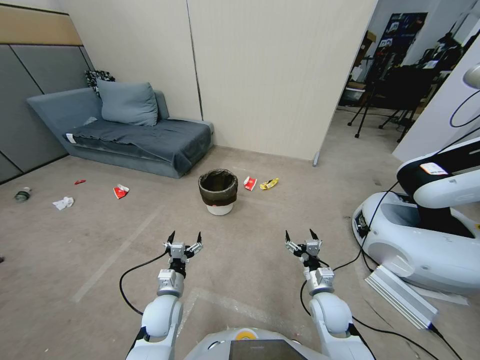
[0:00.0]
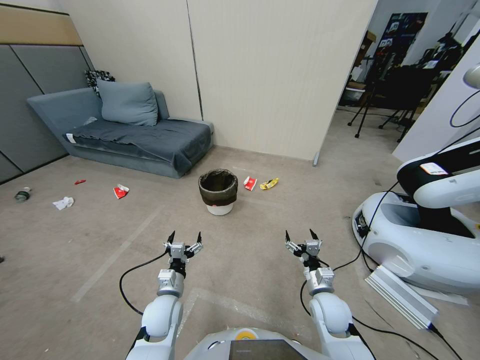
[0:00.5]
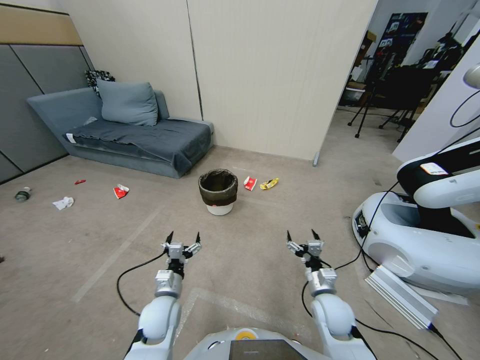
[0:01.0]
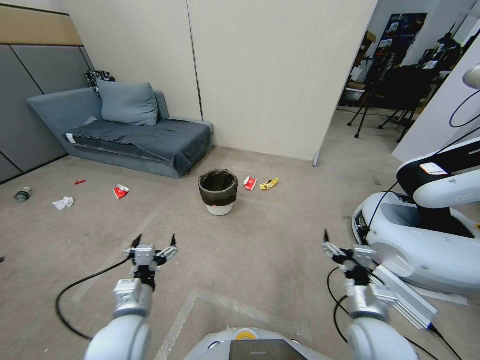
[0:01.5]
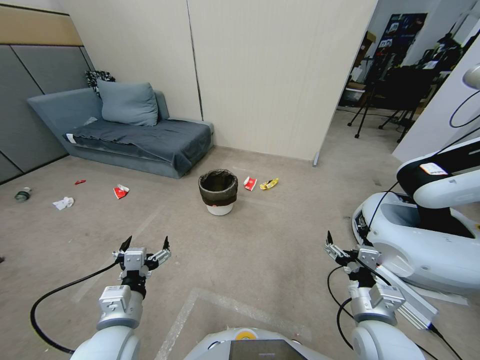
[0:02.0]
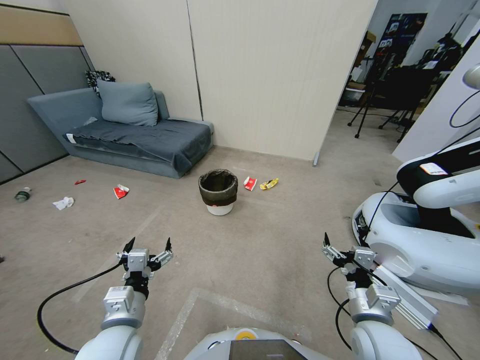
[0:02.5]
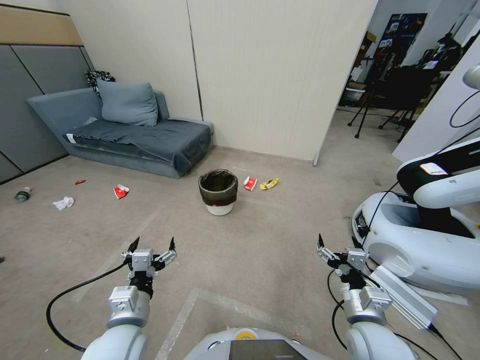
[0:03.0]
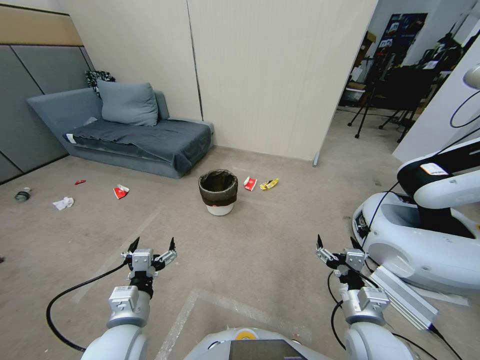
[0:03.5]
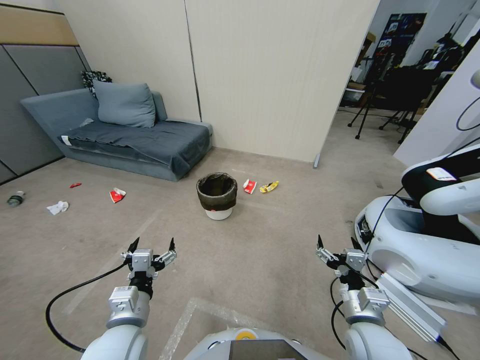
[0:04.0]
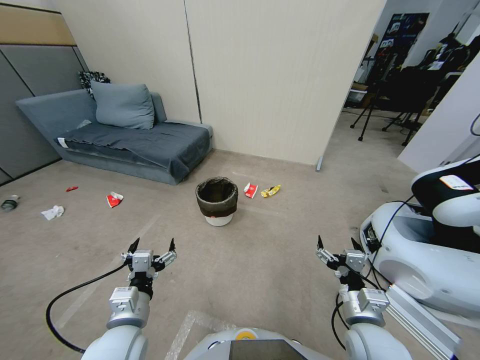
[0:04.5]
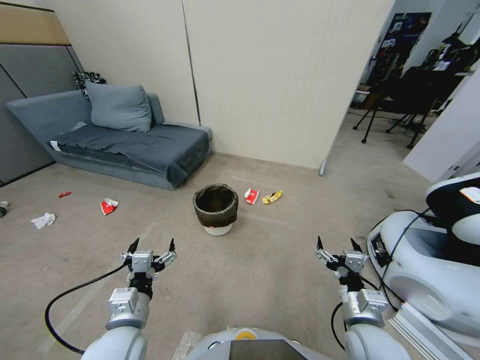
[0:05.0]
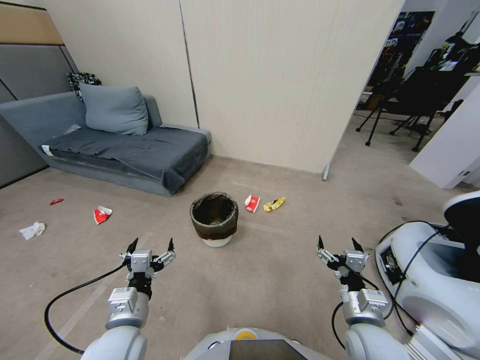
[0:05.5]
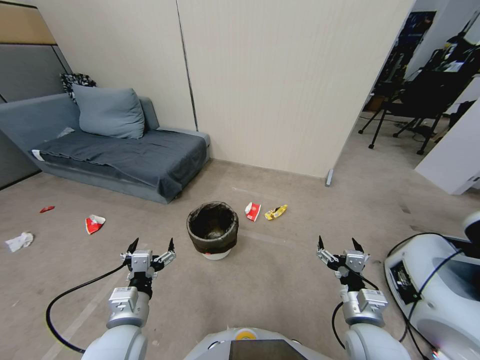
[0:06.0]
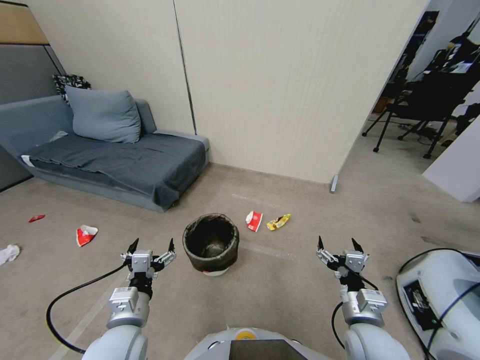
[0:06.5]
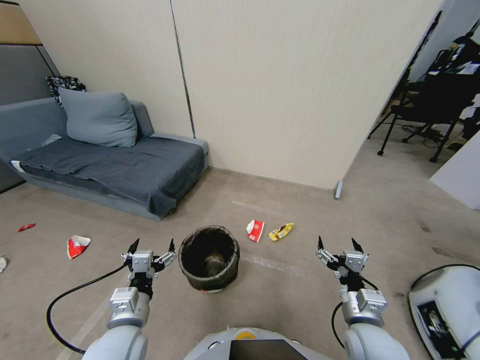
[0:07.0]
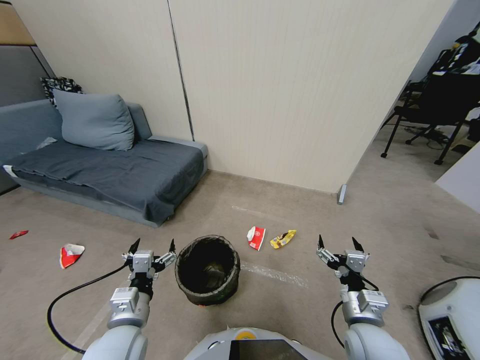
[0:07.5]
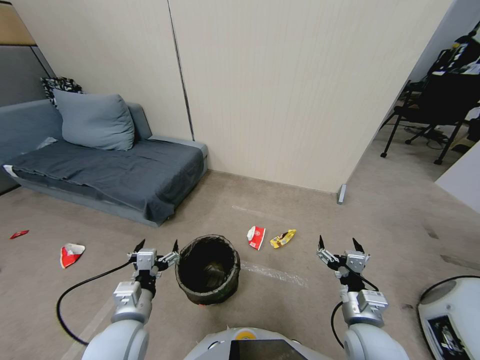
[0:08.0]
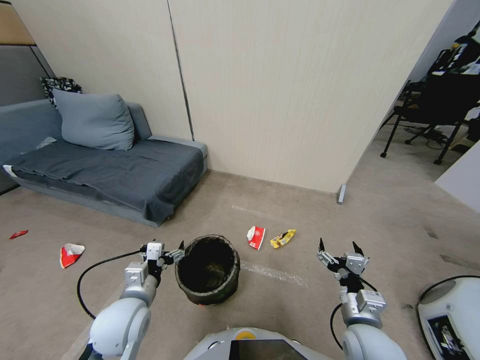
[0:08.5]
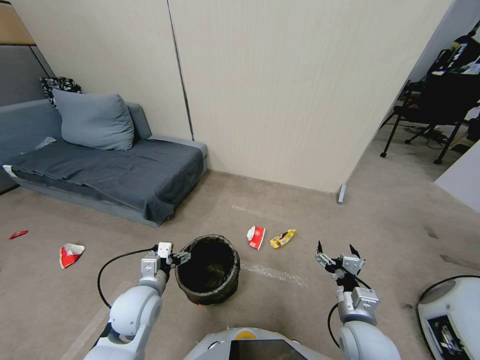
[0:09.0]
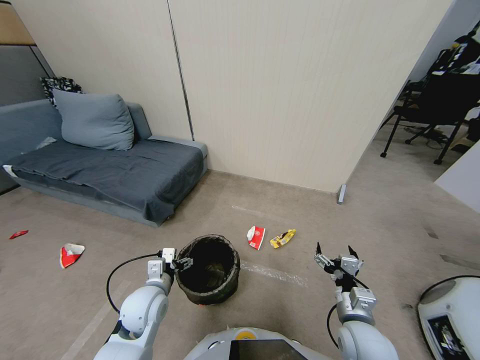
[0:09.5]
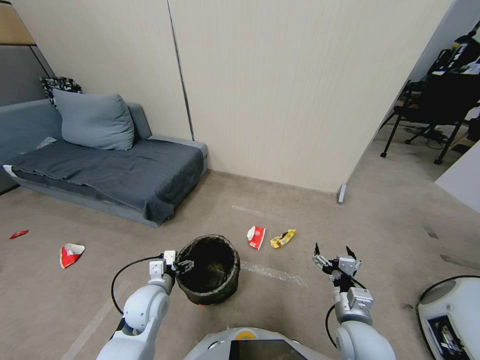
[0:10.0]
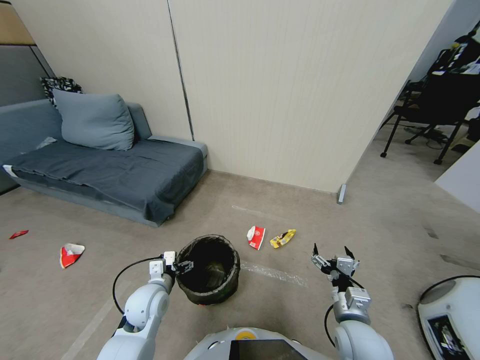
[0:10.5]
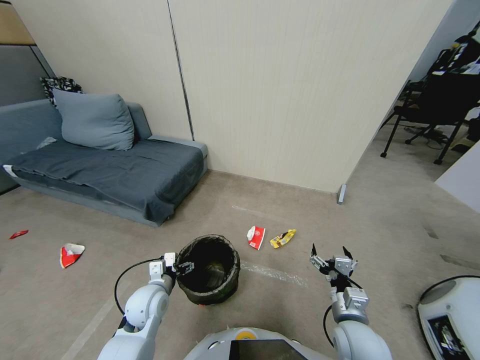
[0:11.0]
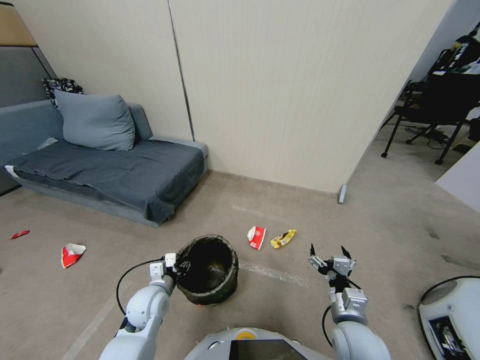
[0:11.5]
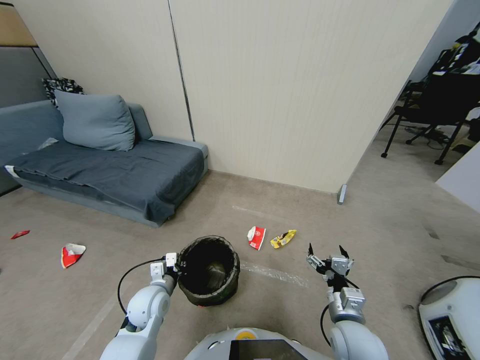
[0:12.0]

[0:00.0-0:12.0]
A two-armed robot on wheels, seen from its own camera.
Task of the whole recording: Pick up the trash bin, then pick up the garbage from the floor and place it into the trash bin.
0:02.0 to 0:04.0: The grippers stay close to where they were, moving slightly.
0:08.0 to 0:10.0: The left gripper travels forward and downward by some 10 cm.
0:10.0 to 0:12.0: The left gripper closes up.

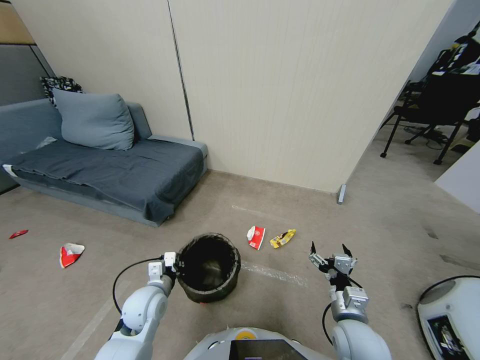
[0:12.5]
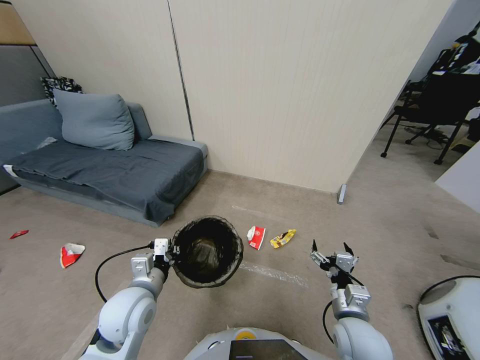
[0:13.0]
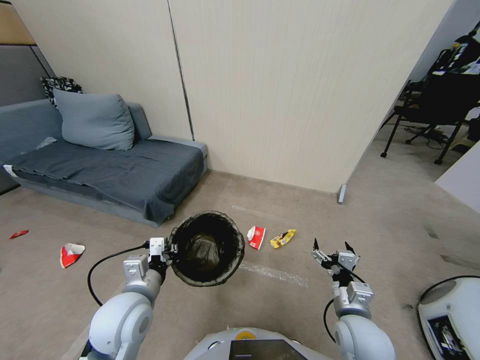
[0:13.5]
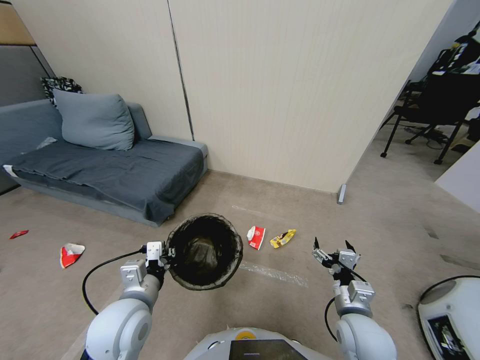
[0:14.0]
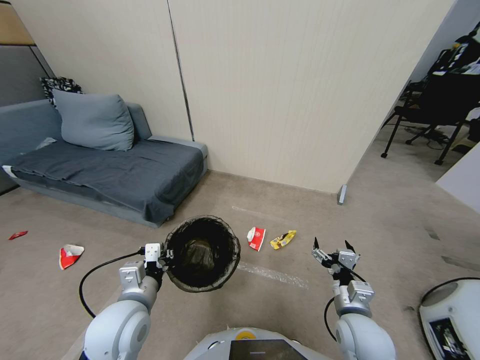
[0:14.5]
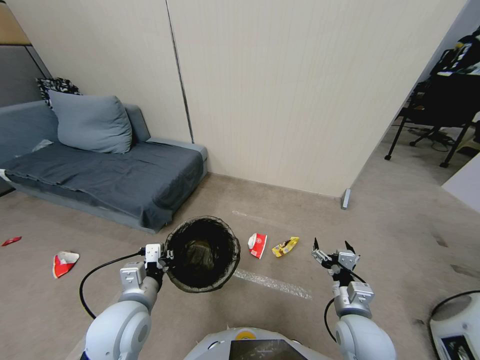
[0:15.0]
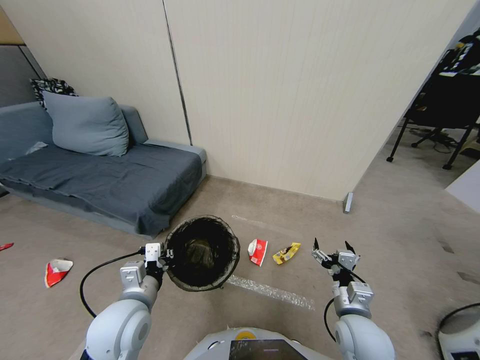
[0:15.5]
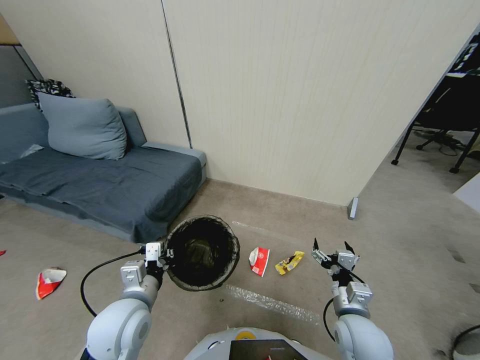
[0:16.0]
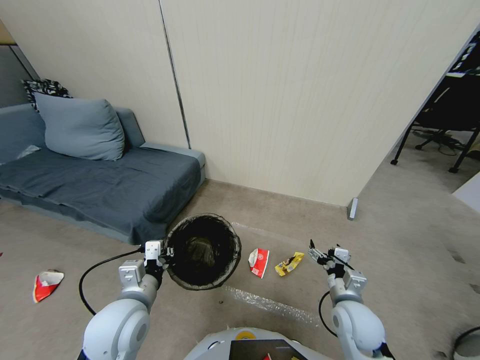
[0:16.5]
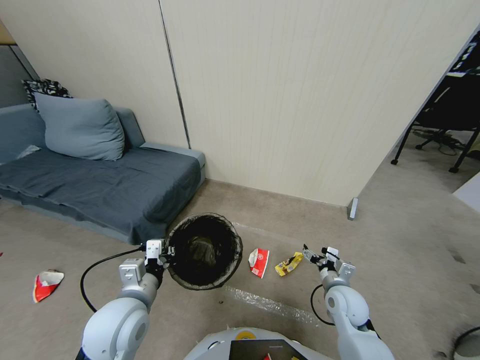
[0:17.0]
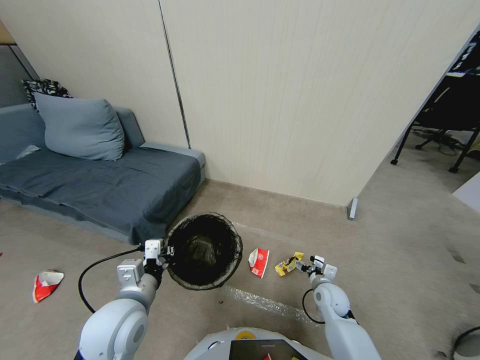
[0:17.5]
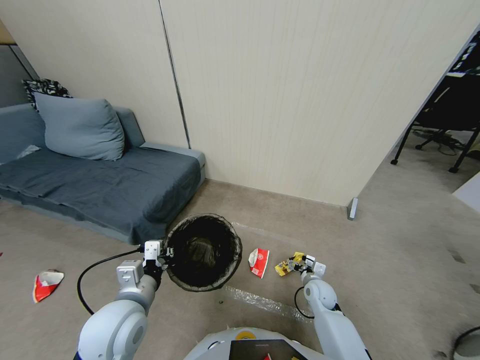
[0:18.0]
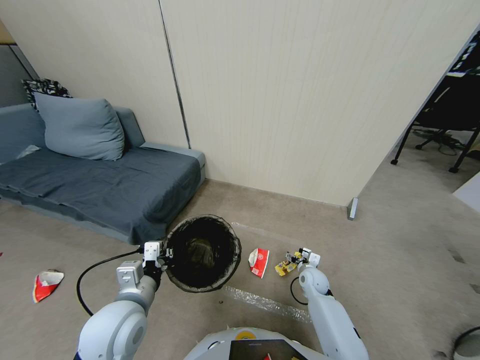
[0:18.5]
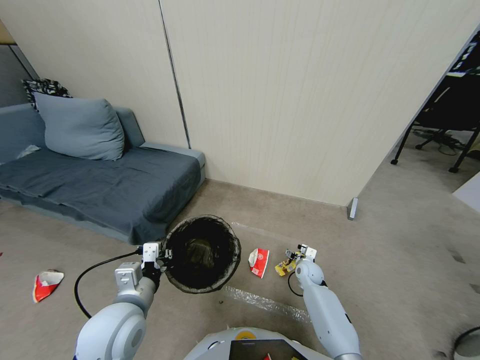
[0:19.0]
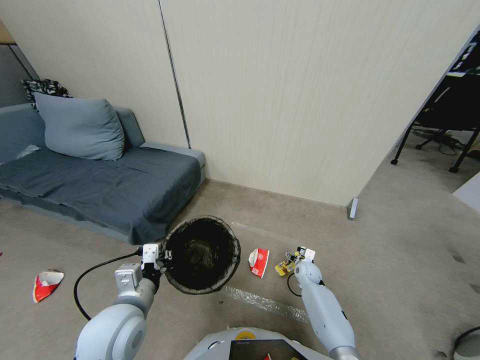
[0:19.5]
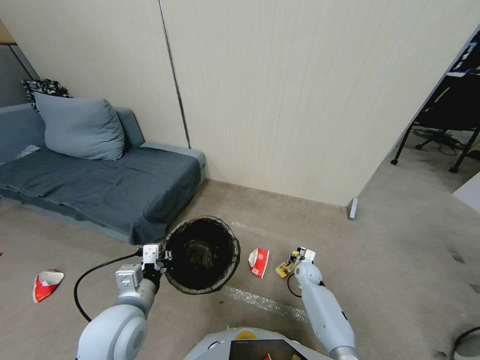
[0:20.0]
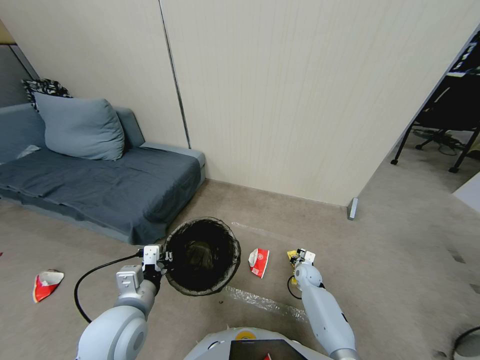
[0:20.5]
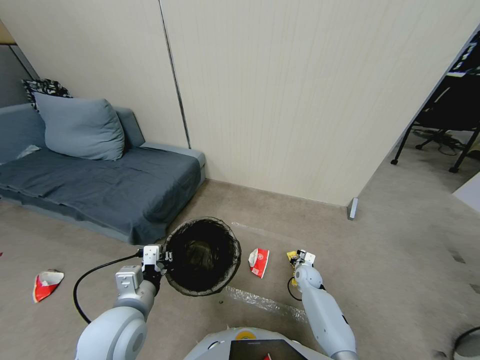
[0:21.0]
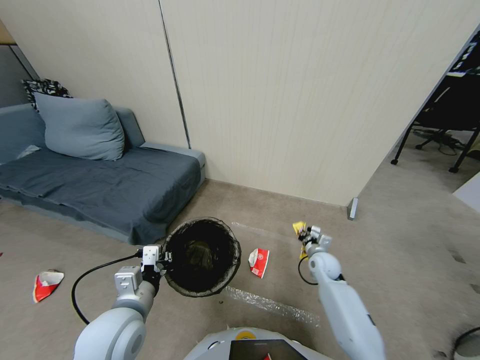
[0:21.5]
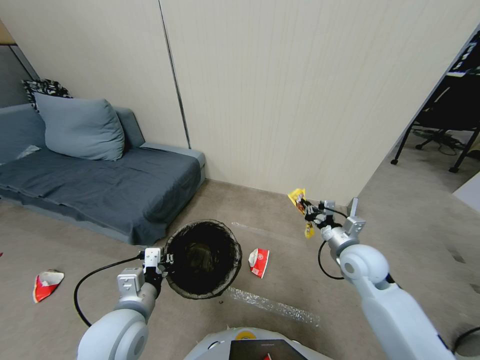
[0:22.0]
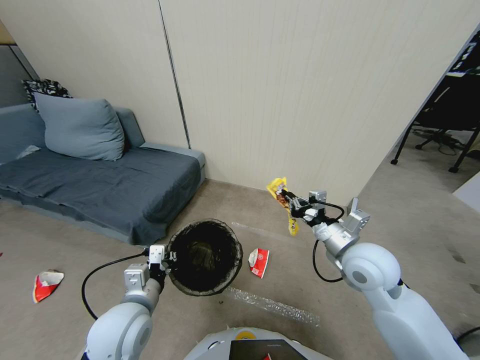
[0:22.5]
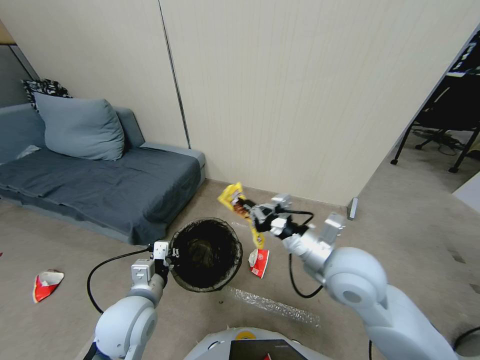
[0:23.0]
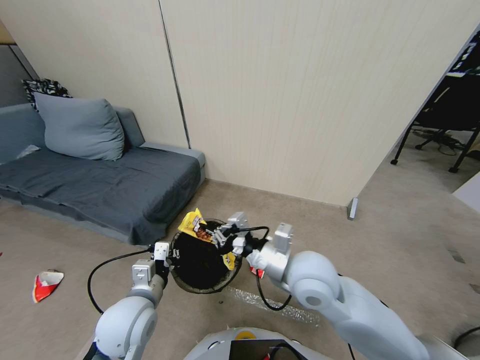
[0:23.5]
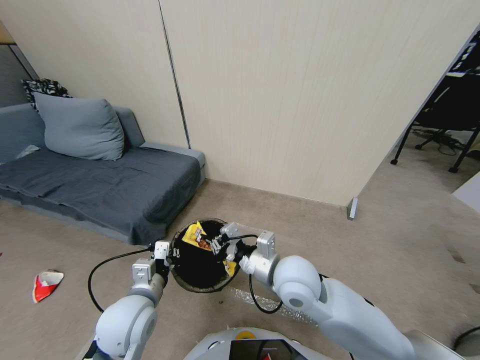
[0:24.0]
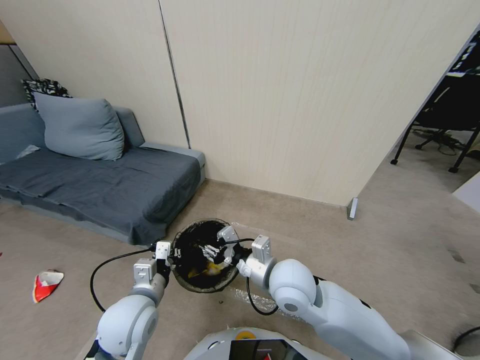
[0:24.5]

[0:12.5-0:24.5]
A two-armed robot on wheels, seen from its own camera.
Task of the whole recording: Pick up the trash bin, then pick up the garbage from the floor and place it into the trash bin.
0:12.5 to 0:14.5: The left gripper goes approximately 10 cm upward and backward.
0:16.5 to 0:18.5: The right gripper shifts roughly 20 cm downward and forward.
0:18.5 to 0:20.5: The right gripper closes its fingers.
0:20.5 to 0:22.5: The right gripper travels upward by some 35 cm.
0:22.5 to 0:24.5: The right gripper shifts approximately 15 cm to the left, and opens up.

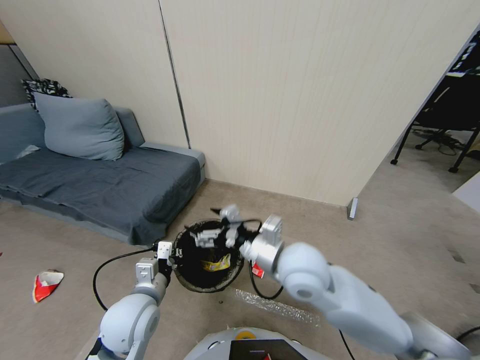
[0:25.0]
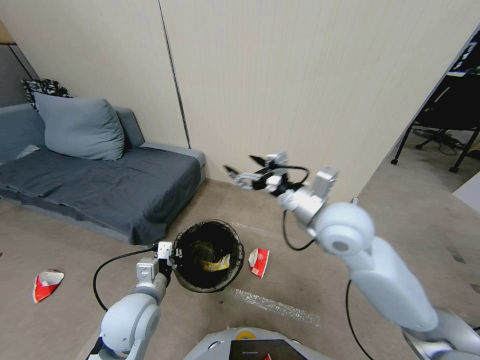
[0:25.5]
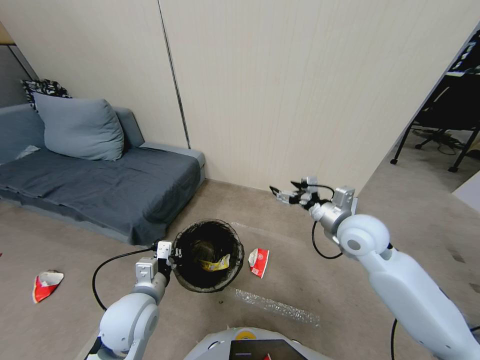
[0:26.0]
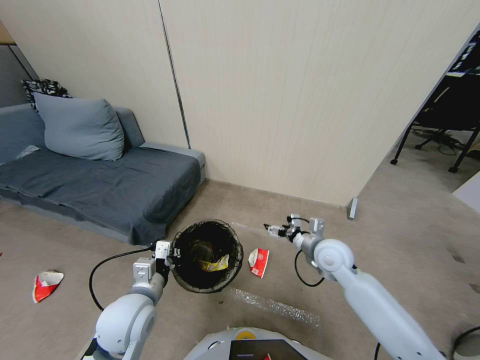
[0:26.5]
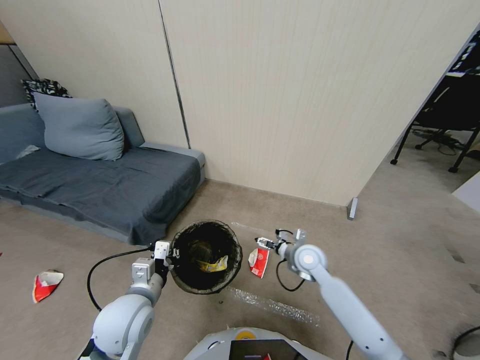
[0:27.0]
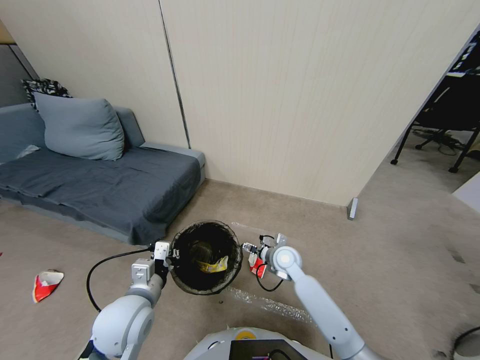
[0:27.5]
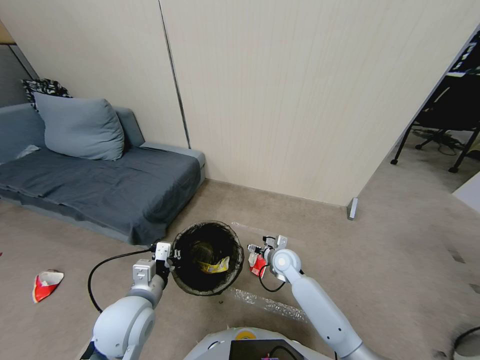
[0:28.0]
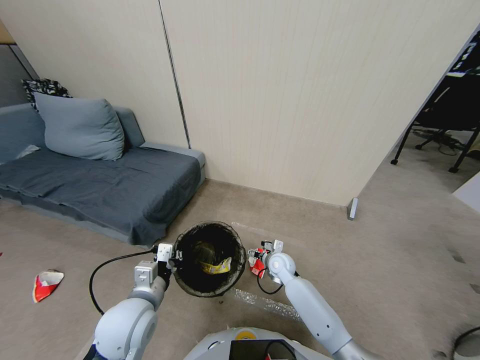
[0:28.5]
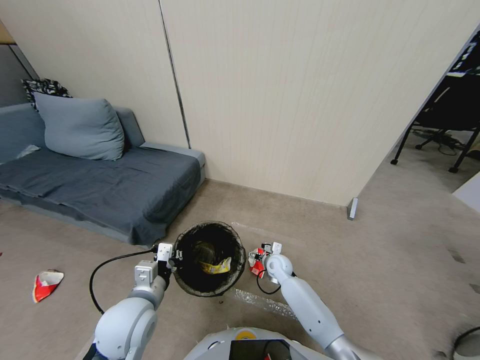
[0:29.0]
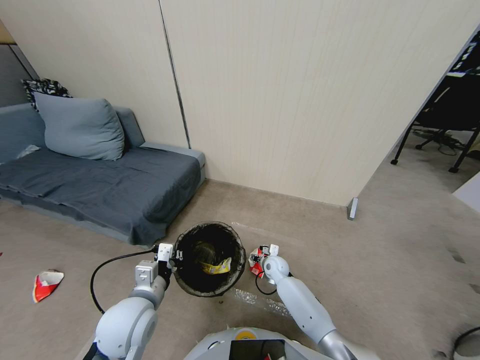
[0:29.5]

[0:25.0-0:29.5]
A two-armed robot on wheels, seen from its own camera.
Task of the whole recording: Pick up the trash bin, then pick up the garbage from the floor and place it into the trash bin.
0:25.0 to 0:27.0: The right gripper is displaced downward and forward by about 25 cm.
0:27.0 to 0:29.5: The right gripper travels downward by some 15 cm.
